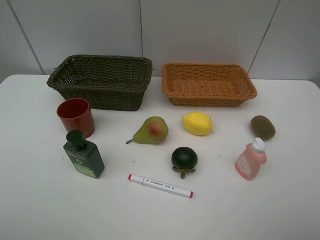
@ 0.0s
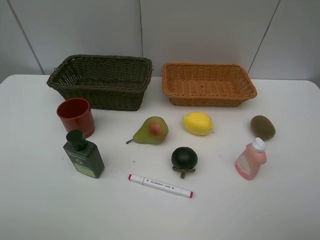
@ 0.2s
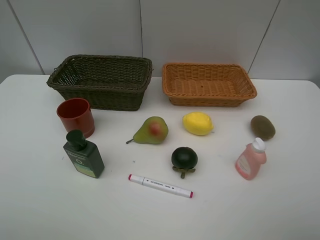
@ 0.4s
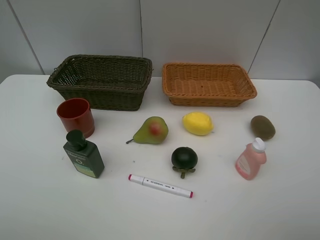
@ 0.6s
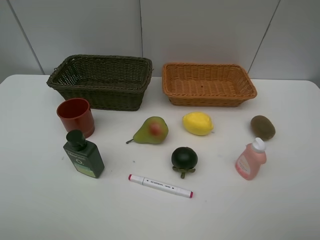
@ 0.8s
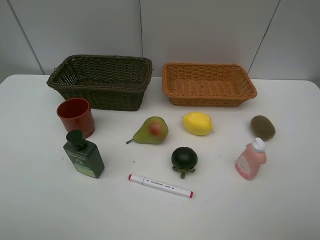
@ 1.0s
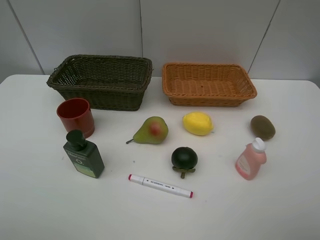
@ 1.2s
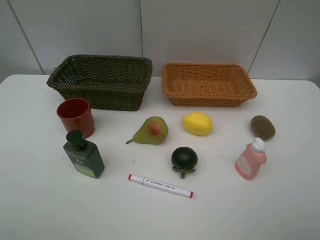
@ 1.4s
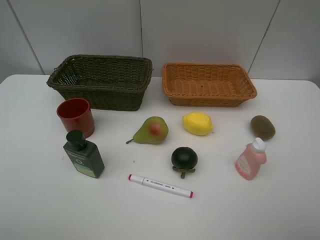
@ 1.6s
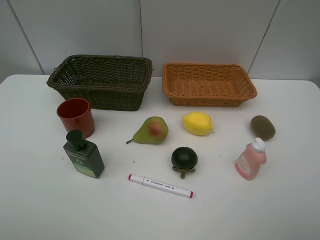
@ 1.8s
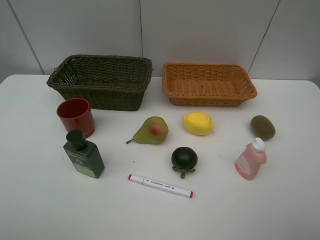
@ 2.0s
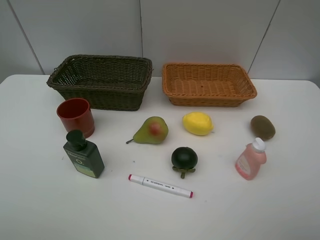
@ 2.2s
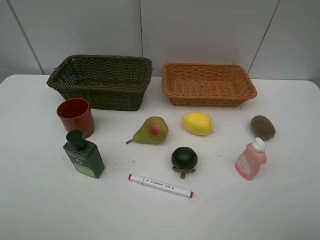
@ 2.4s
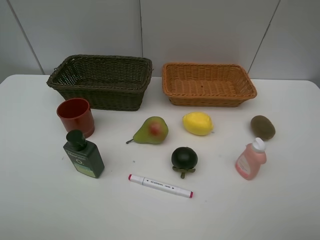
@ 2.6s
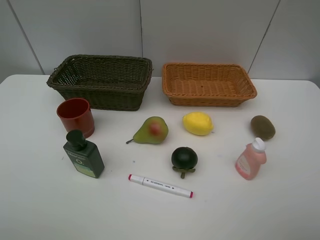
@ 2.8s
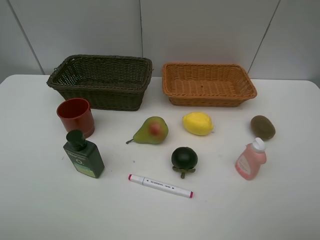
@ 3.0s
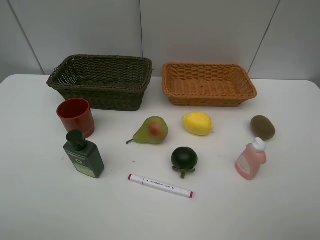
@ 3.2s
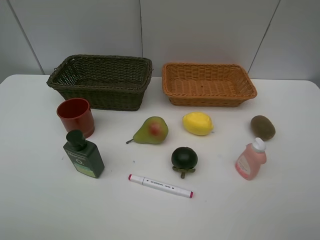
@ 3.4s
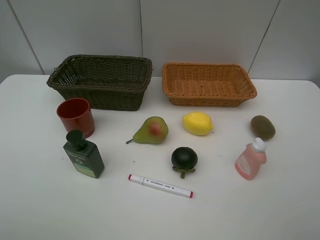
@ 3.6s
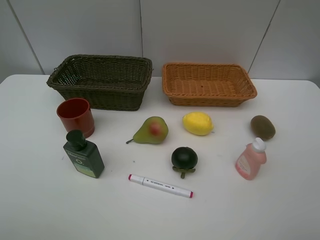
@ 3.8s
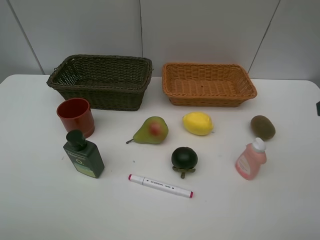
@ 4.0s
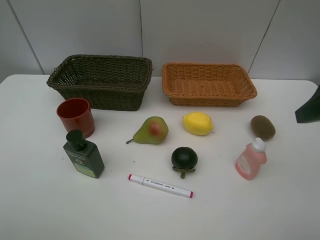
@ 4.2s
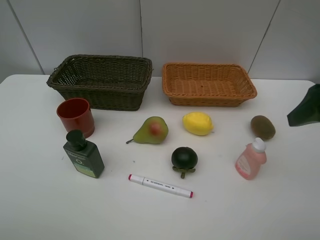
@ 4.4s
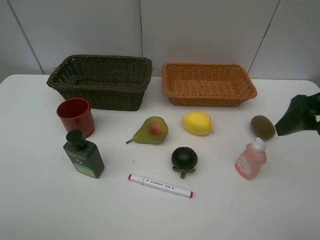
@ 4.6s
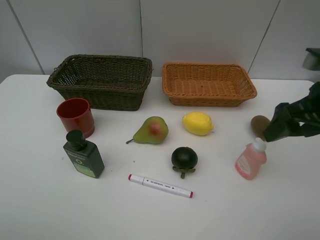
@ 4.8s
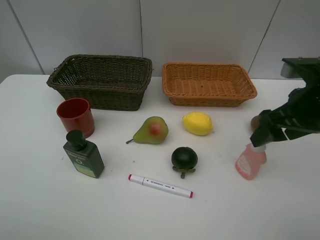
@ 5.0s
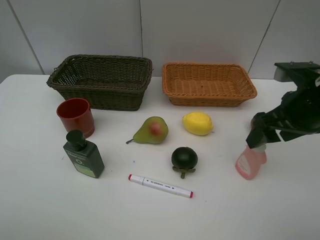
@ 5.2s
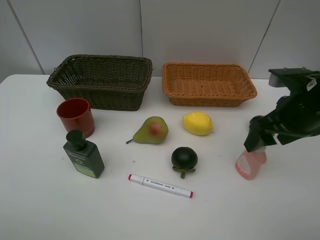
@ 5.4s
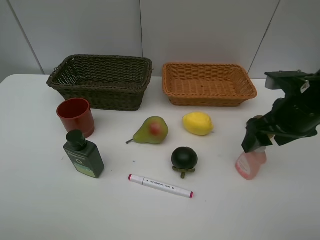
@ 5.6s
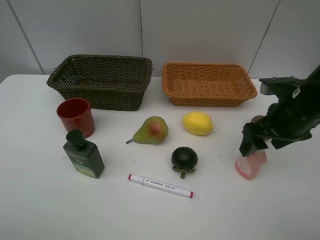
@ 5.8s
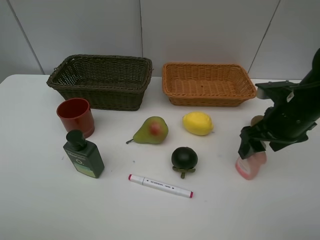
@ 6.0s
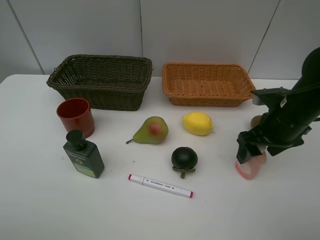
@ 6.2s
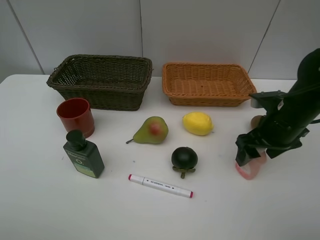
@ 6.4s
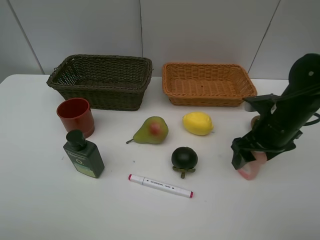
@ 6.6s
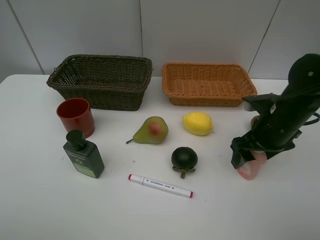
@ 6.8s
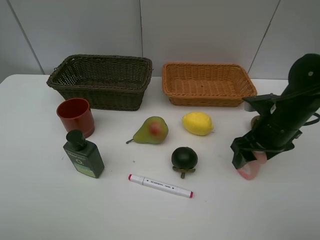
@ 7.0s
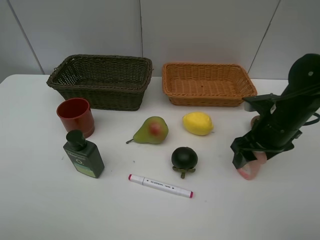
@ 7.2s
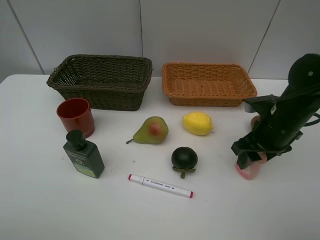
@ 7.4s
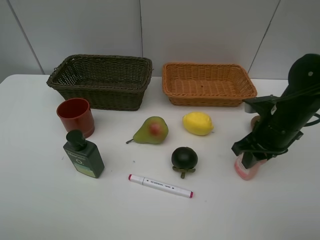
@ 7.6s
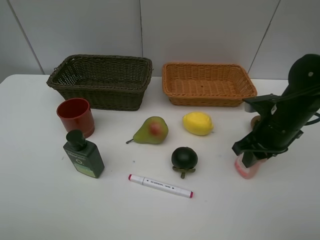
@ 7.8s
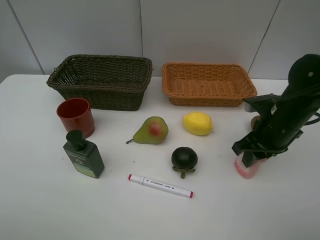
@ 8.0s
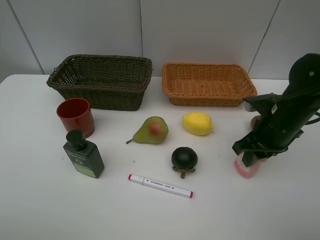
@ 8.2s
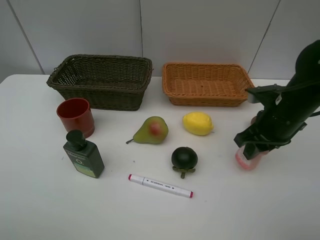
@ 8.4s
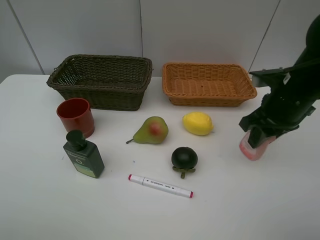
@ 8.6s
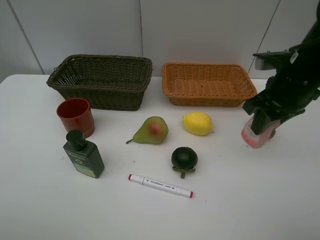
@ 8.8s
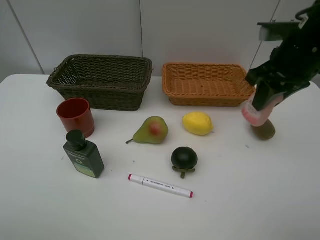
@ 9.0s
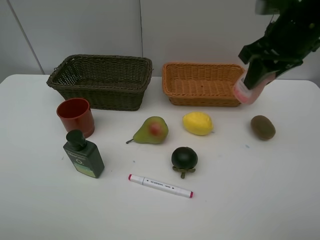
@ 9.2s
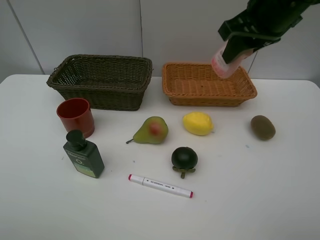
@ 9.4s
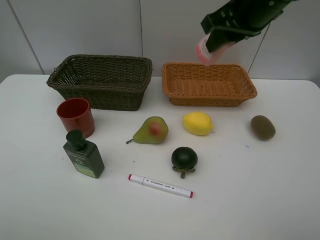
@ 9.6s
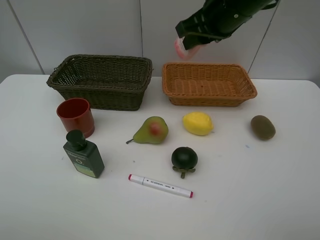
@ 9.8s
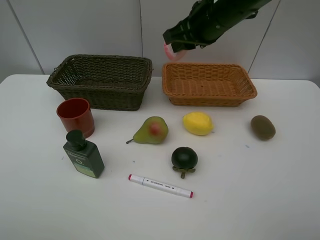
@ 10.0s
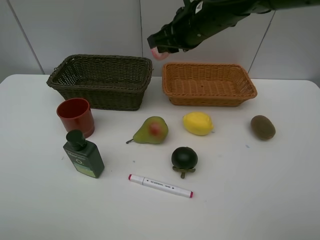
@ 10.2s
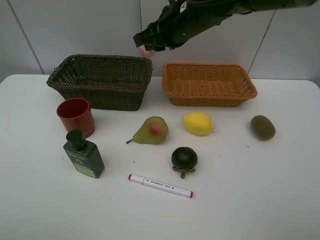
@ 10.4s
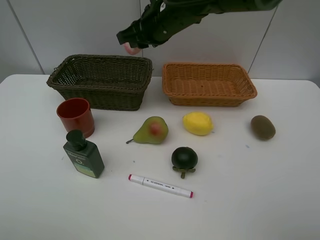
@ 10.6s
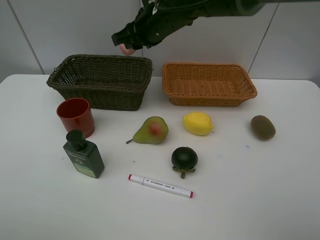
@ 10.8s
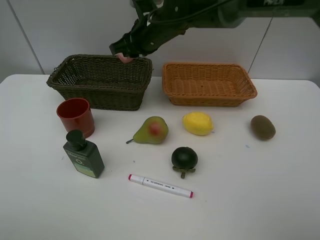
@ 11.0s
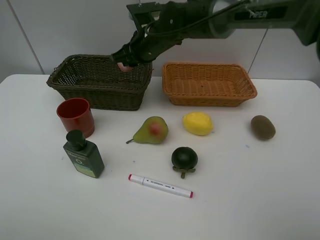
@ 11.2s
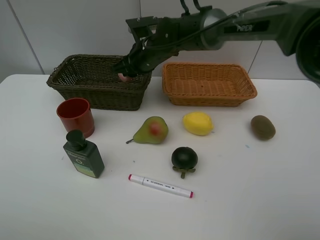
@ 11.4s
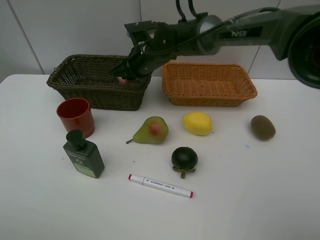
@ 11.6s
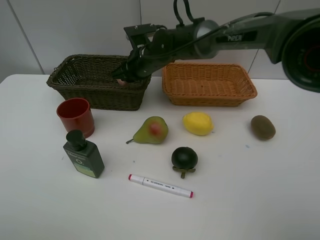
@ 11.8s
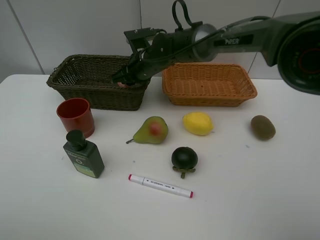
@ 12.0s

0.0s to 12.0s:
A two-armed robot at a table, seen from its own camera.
Task of the whole recording: Place multiple objects separately in different baskets.
Step, 0.0s to 8.4s: Pick up the laundry detergent with right gripper.
0.0s to 1.6s: Both grippers stay put.
3.0s to 4.4s: The right gripper heads forward, covering approximately 15 cm.
4.4s to 6.0s: The right gripper travels downward and forward by approximately 15 cm.
6.0s to 7.6s: The right gripper closes its fingers.
7.6s to 9.0s: The right gripper goes some 15 cm upward.
9.0s to 10.4s: The right gripper heads to the left and forward, covering some 20 cm.
10.4s to 12.0s: The right gripper is displaced downward, to the left and forward by approximately 15 cm.

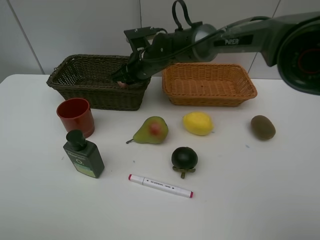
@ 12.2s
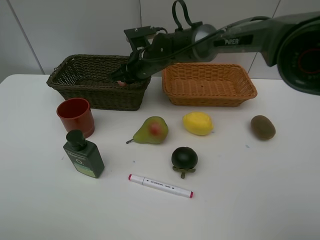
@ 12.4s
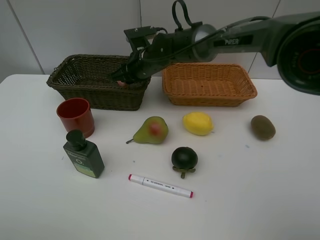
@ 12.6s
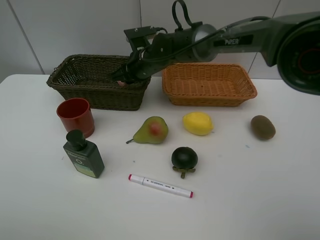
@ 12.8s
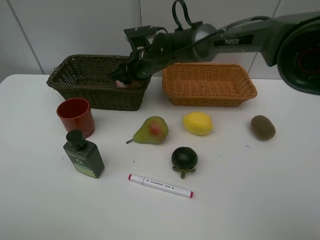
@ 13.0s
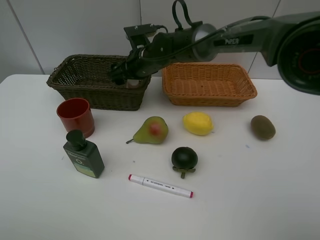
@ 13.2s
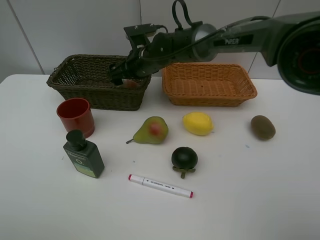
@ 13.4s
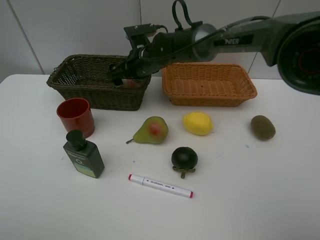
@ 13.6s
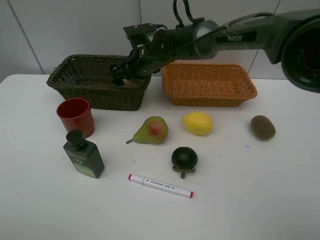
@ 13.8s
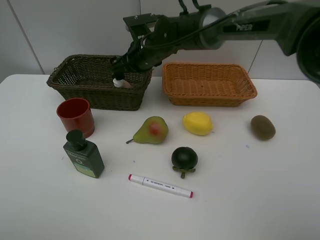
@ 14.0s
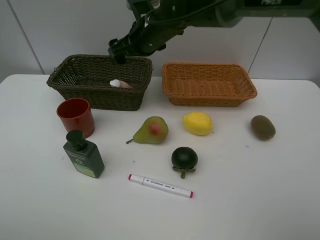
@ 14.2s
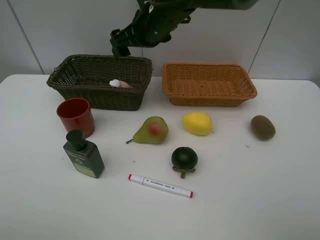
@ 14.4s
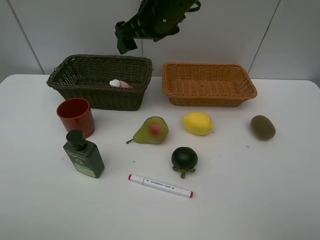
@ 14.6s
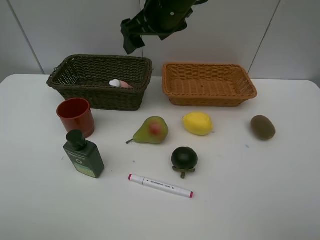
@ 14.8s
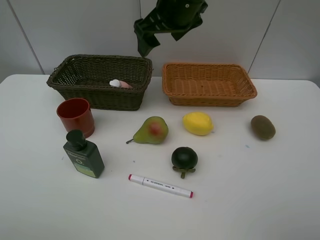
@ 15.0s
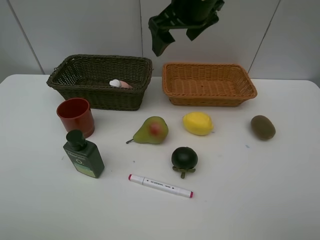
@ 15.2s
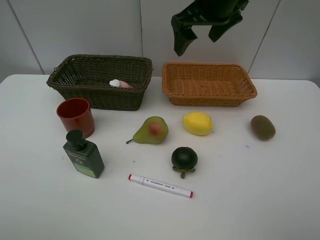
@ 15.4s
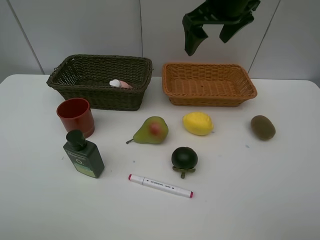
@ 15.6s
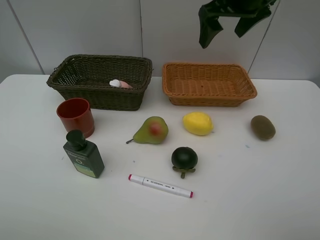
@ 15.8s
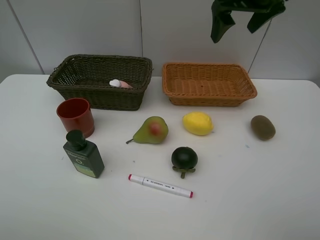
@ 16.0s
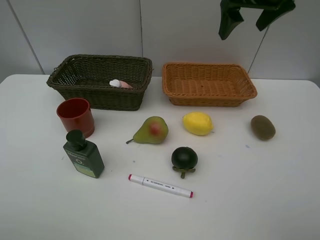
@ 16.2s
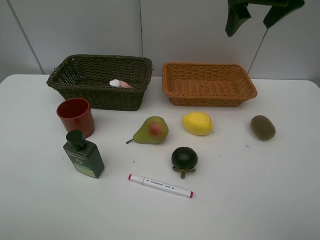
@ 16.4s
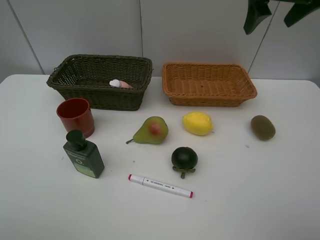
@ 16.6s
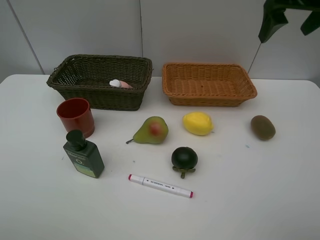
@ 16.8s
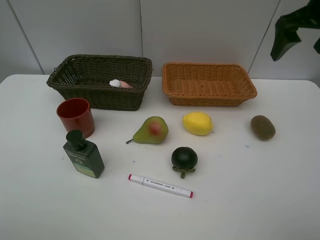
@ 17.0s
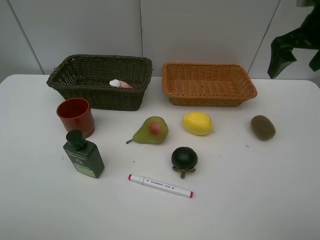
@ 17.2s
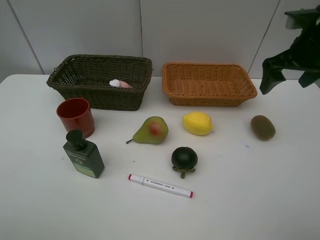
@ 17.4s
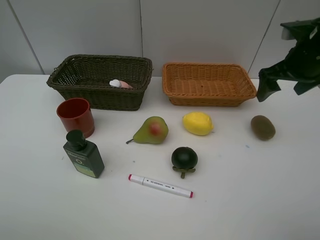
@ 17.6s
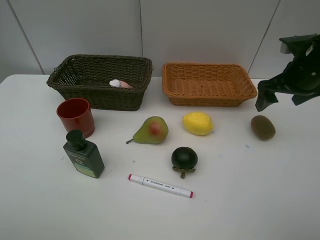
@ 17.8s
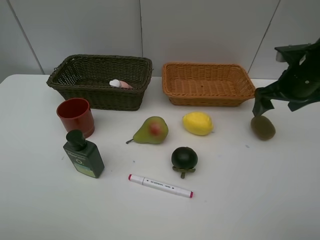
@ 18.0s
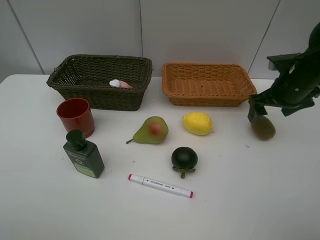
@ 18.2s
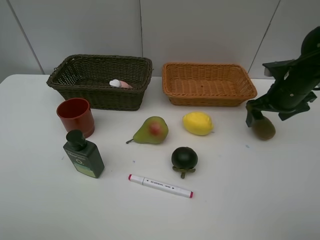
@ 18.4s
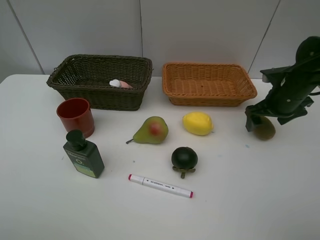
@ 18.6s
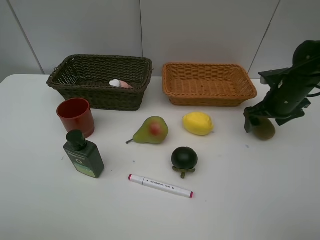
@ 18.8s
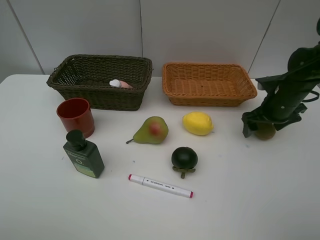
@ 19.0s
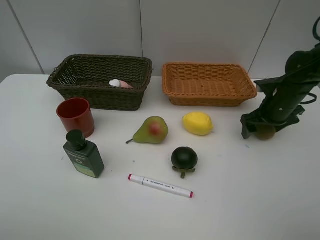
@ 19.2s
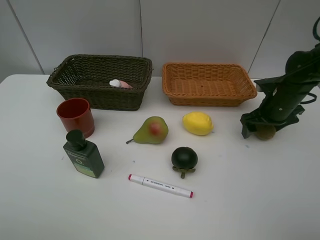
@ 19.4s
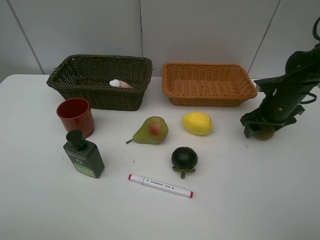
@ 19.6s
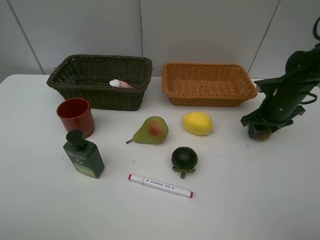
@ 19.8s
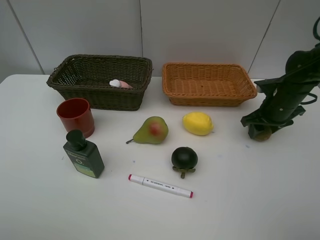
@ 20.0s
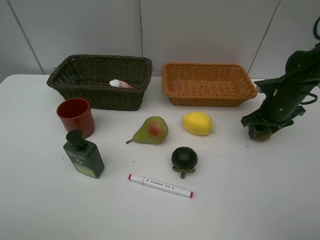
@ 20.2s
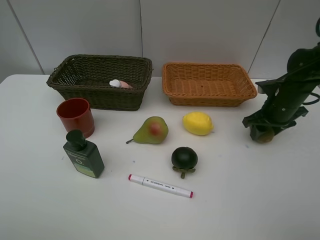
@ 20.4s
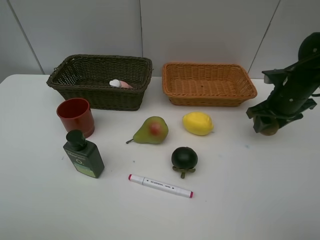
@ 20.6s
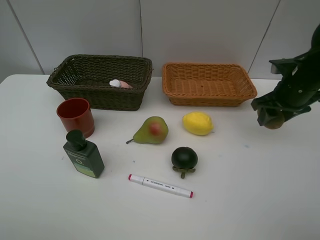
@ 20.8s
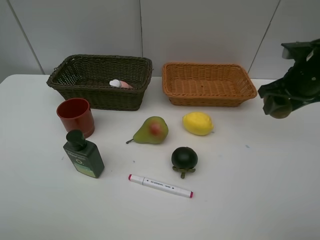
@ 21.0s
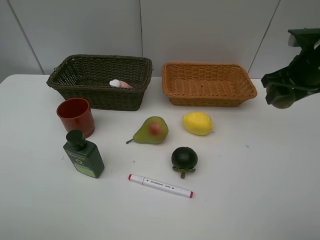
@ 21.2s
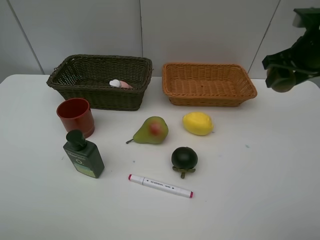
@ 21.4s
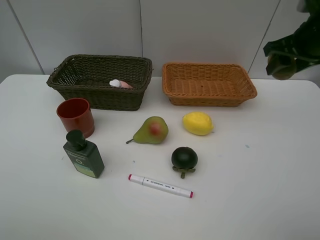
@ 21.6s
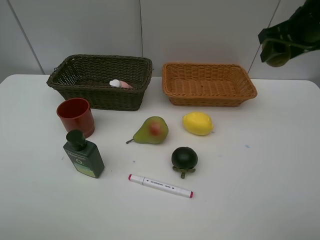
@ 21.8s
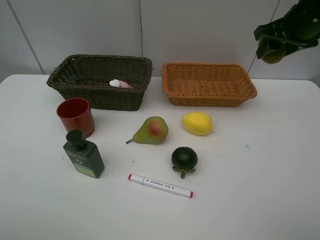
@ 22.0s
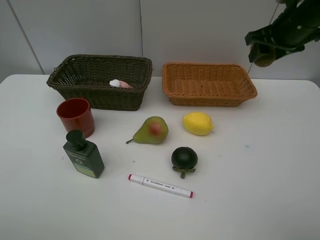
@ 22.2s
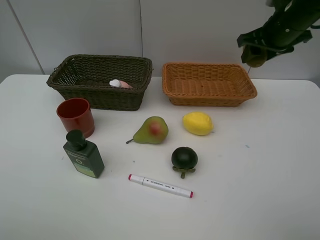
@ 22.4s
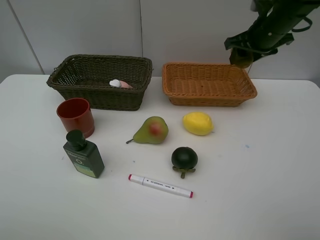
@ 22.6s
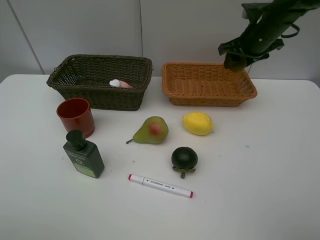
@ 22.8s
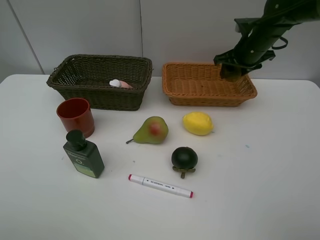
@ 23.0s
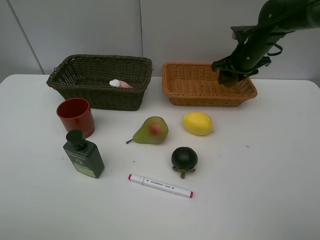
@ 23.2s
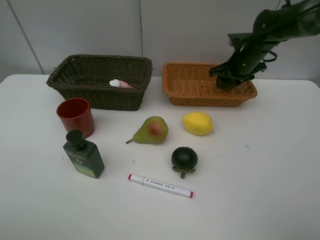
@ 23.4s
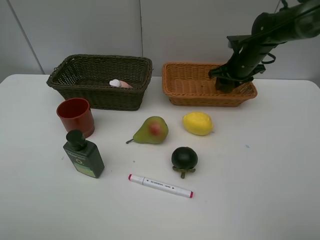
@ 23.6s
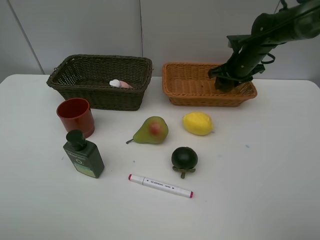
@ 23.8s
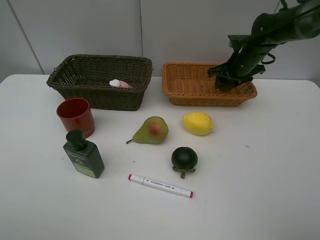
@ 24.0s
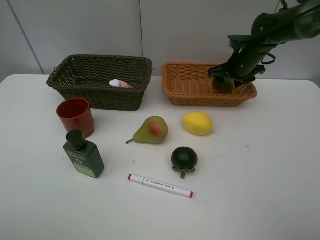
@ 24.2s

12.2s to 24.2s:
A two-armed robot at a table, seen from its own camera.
Task of the whole recording: Place multiple objects separately in different baskets.
Step, 13.6s to 20.6s: Pick up kiwi with right gripper.
12.2s to 13.8s: The right gripper opens its fingers.
13.8s to 15.2s: The right gripper heads upward, to the right and backward, covering approximately 20 cm.
15.2s to 16.6s: The right gripper heads to the right, covering about 15 cm.
16.6s to 18.2s: The right gripper shifts some 20 cm downward.
18.2s to 19.8s: The right gripper goes about 5 cm downward, and closes.
19.8s to 21.2s: The right gripper moves upward, some 15 cm.
21.2s to 22.6s: The right gripper travels forward and to the left by some 10 cm.
22.6s to 24.2s: The right gripper shifts some 10 cm downward.
